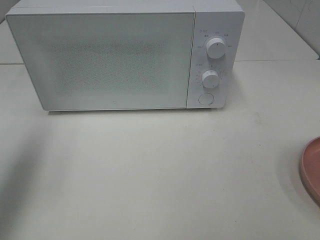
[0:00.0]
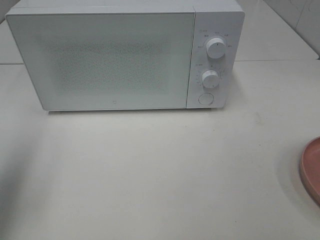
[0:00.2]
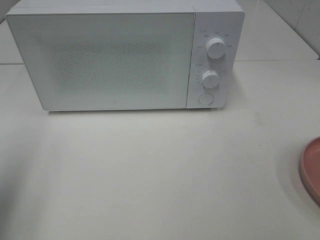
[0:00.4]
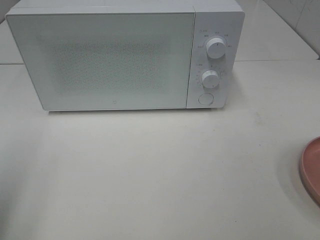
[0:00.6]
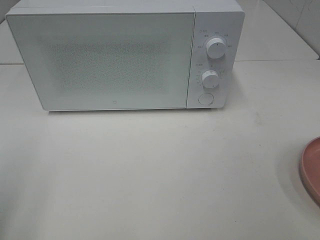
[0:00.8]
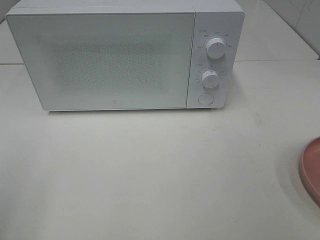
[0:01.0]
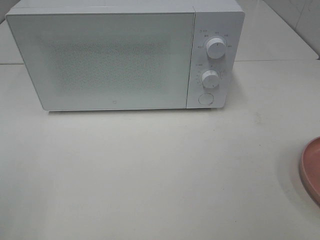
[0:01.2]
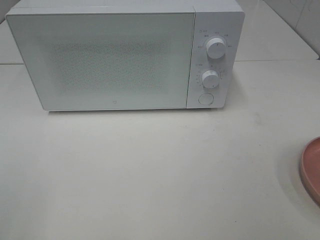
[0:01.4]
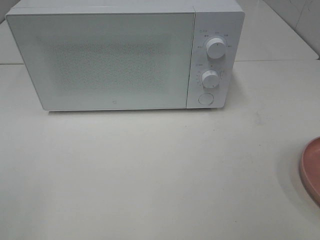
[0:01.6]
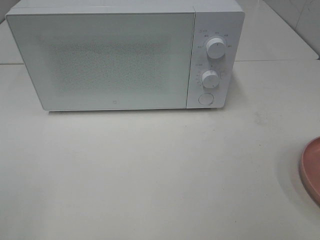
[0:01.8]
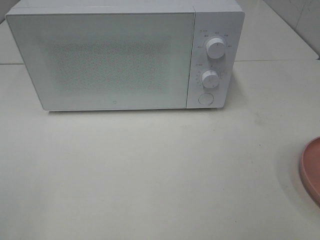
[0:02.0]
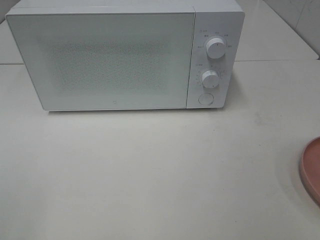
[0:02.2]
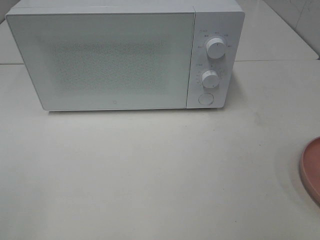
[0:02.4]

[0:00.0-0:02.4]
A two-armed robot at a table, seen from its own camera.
Task of the whole recording: Heat the burger.
0:00.0 to 0:01.2: The left gripper moves backward, approximately 20 cm.

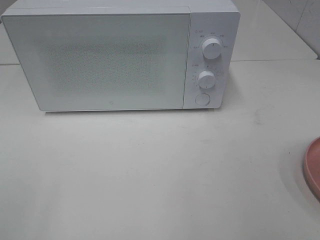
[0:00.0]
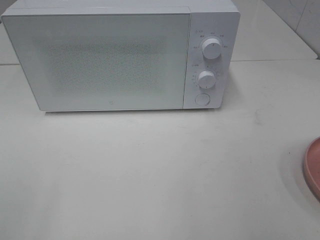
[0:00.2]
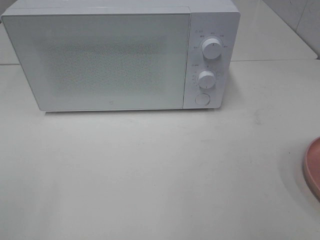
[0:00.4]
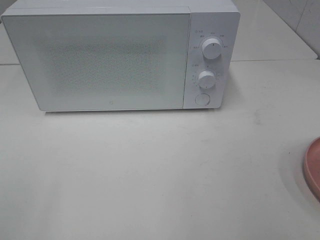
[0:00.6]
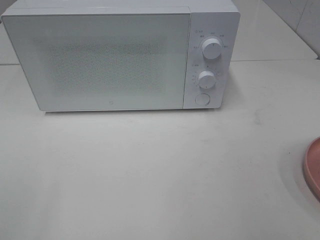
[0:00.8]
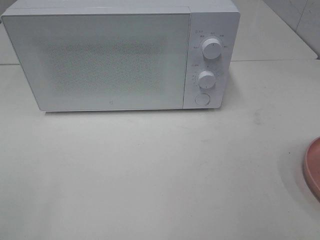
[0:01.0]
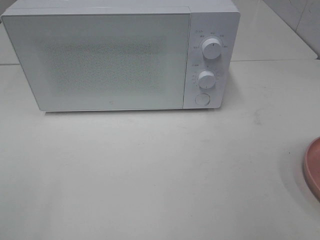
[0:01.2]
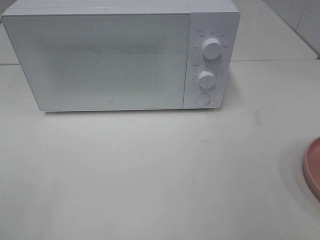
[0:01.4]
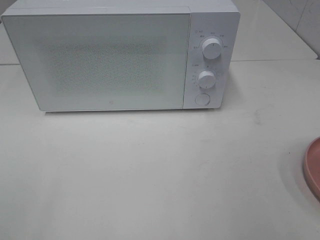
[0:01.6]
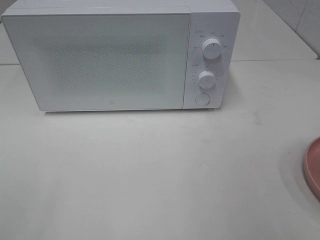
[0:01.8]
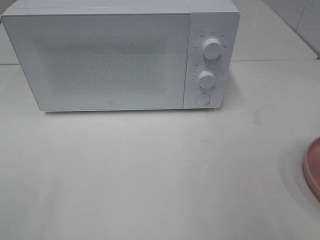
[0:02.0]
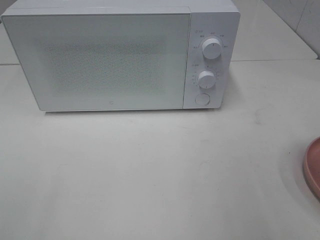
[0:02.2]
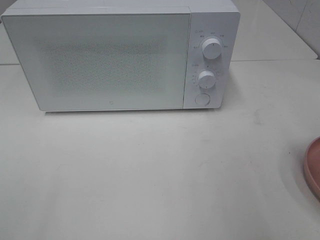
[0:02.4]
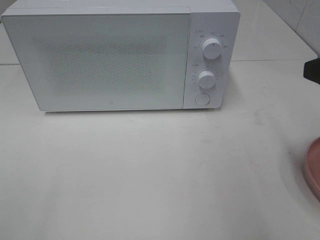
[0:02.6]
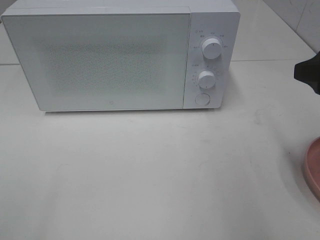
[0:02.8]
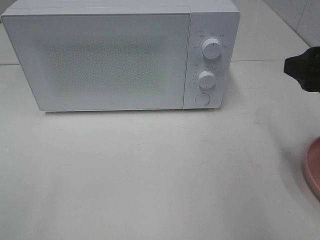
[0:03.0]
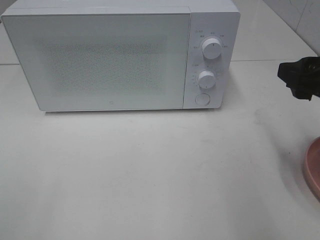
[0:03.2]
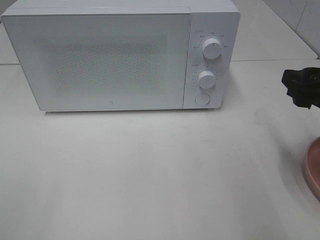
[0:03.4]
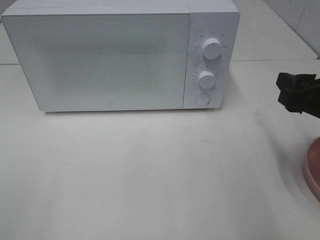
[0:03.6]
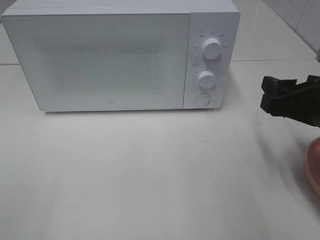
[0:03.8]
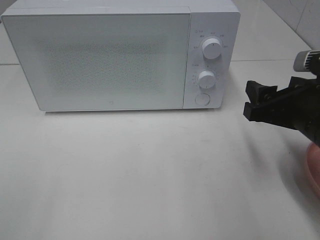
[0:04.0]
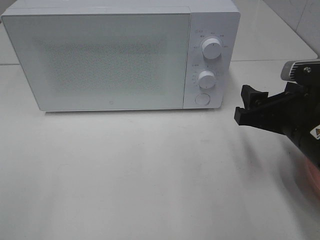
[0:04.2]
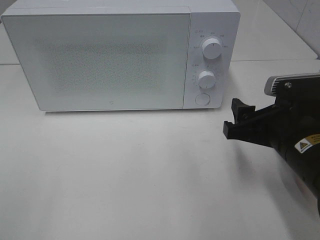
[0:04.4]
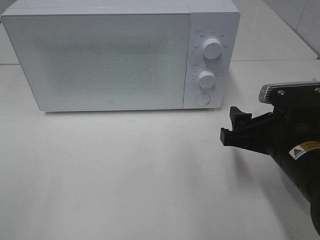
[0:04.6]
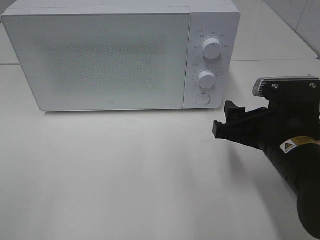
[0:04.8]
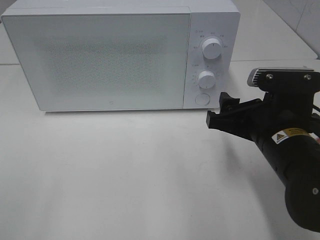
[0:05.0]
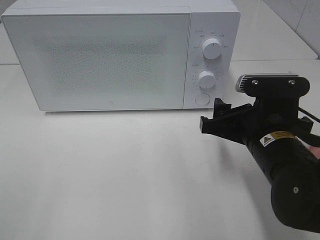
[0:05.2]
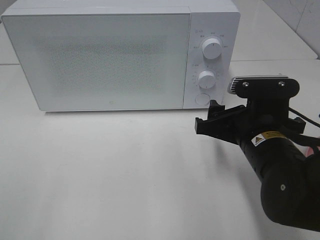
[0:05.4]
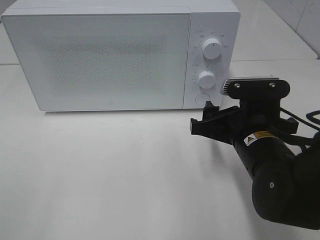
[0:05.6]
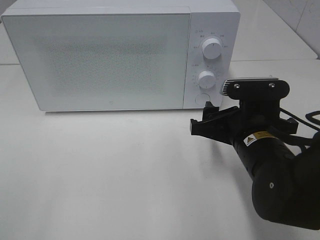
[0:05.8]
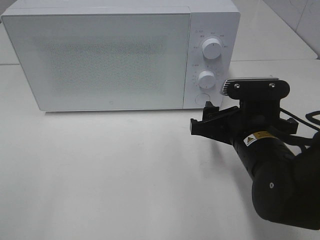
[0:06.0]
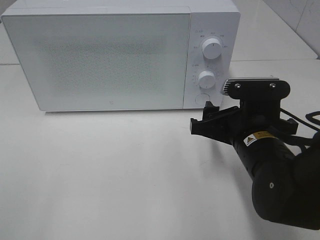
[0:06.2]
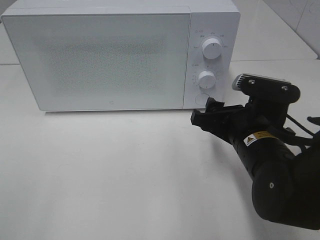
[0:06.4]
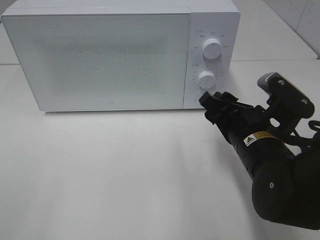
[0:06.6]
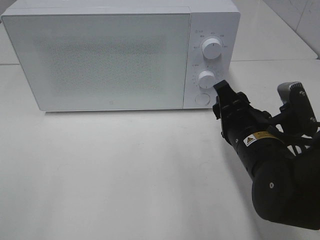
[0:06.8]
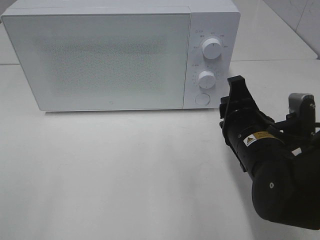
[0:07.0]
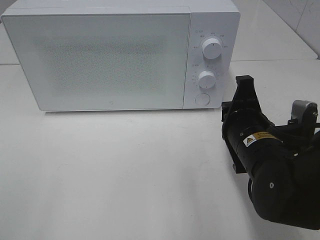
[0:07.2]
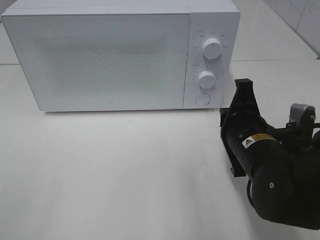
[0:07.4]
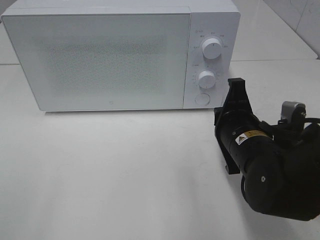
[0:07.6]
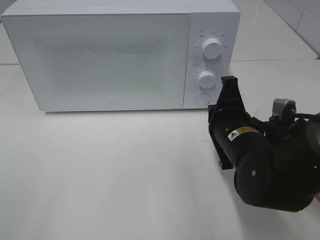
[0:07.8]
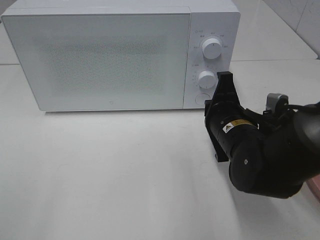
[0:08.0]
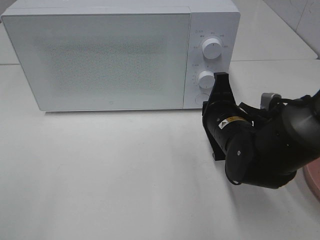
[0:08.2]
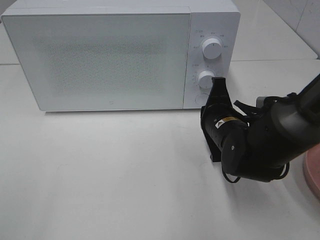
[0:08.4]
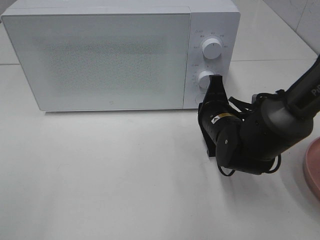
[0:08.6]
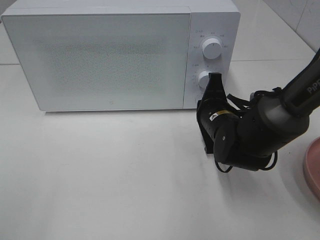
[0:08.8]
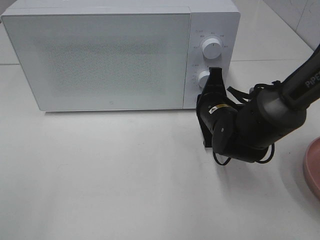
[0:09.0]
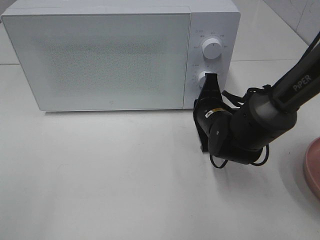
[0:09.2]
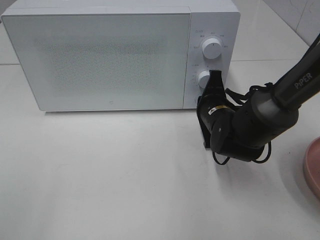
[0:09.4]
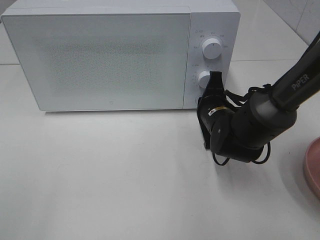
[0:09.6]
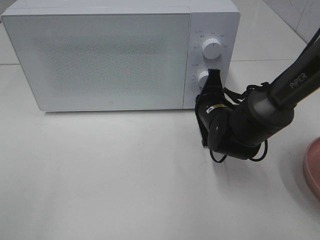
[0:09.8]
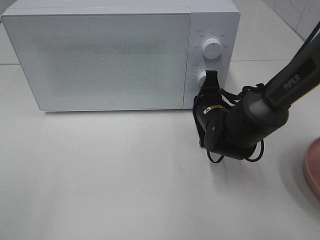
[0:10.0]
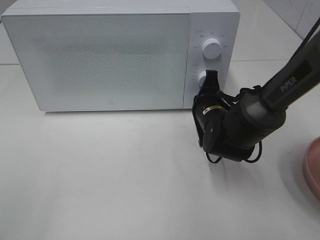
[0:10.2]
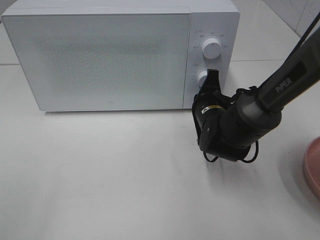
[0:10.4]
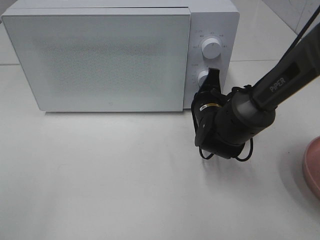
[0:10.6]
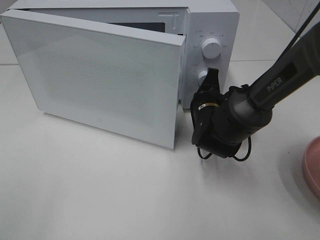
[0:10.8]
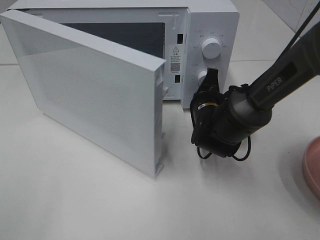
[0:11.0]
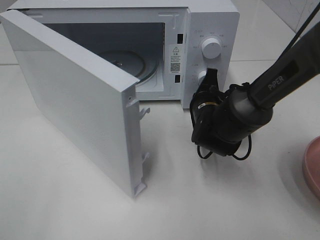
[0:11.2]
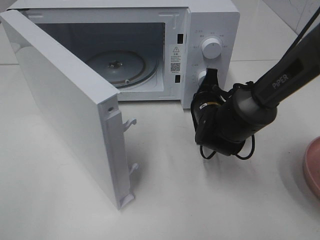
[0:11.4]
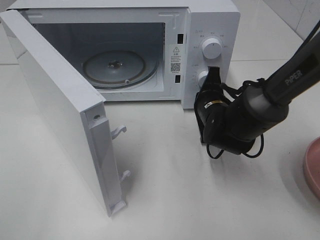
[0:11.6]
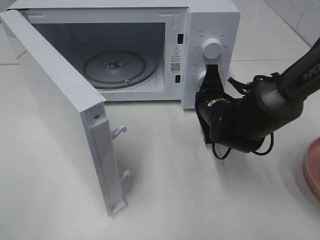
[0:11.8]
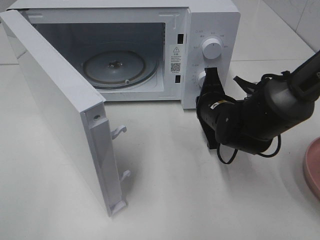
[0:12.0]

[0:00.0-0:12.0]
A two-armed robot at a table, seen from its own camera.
Task of the whole recording: Heat the burger.
0:01.6 to 0:03.0: The right gripper is displaced forward by approximately 15 cm.
0:03.0 to 0:04.4: The right gripper heads downward and to the left, covering roughly 10 cm.
0:04.4 to 0:06.0: The right gripper ends up some 5 cm from where it was.
0:06.0 to 0:07.6: The right gripper closes its fingers.
0:07.6 to 0:09.0: The right gripper moves forward, approximately 10 cm.
0:09.0 to 0:10.4: The grippers make only small movements.

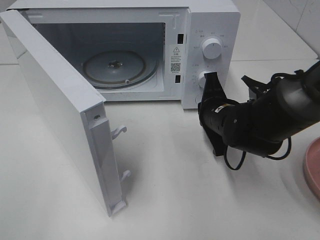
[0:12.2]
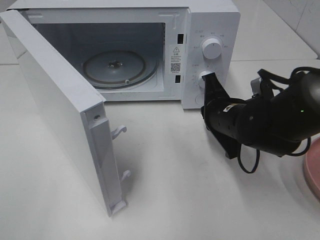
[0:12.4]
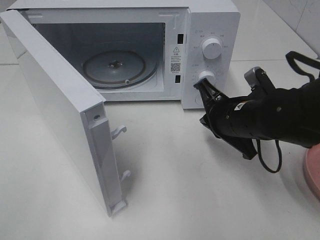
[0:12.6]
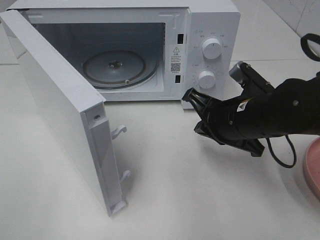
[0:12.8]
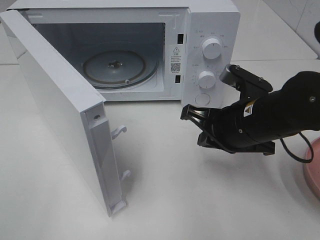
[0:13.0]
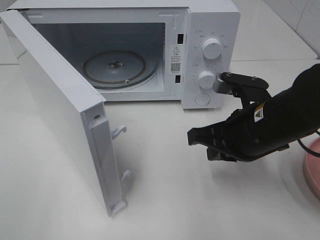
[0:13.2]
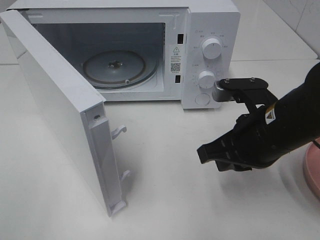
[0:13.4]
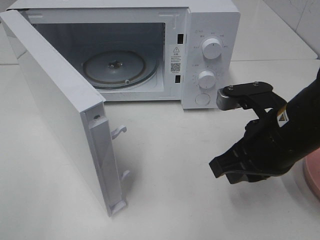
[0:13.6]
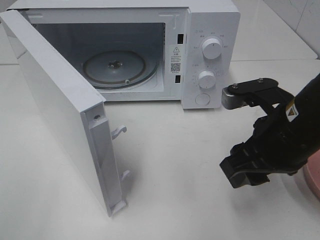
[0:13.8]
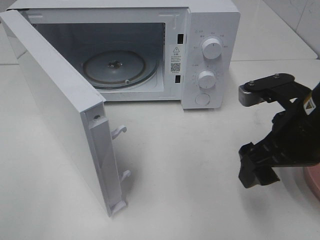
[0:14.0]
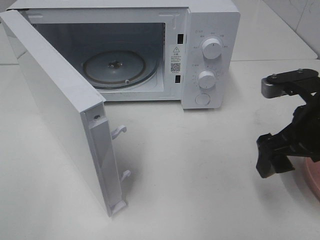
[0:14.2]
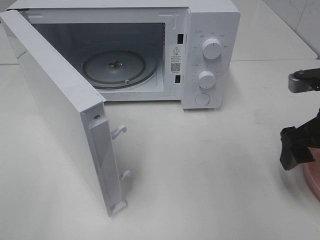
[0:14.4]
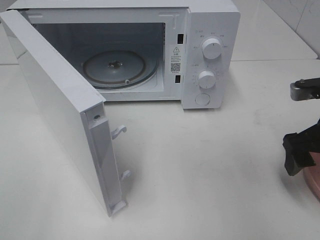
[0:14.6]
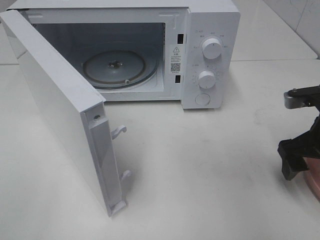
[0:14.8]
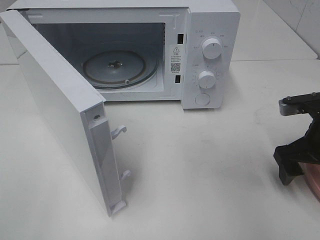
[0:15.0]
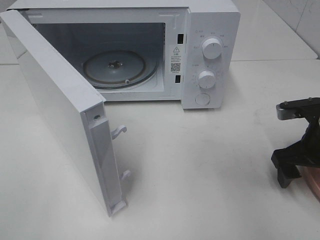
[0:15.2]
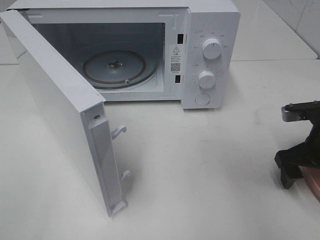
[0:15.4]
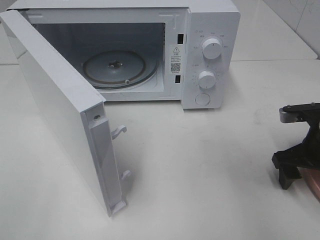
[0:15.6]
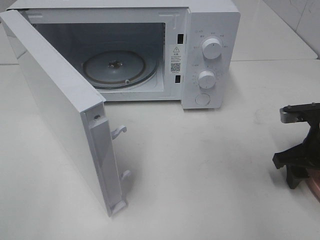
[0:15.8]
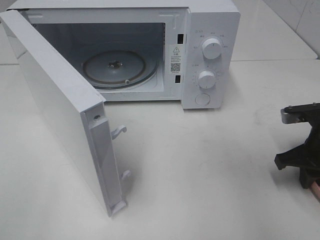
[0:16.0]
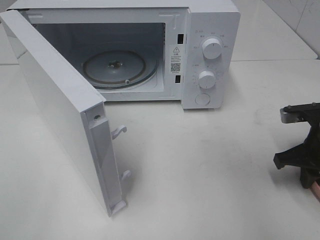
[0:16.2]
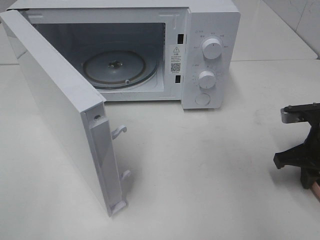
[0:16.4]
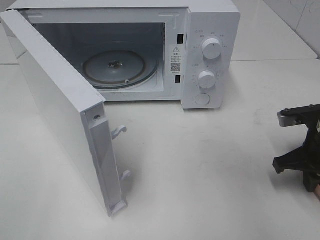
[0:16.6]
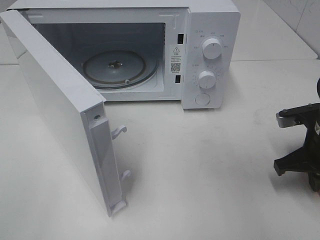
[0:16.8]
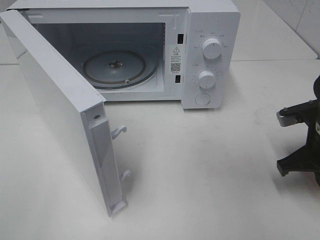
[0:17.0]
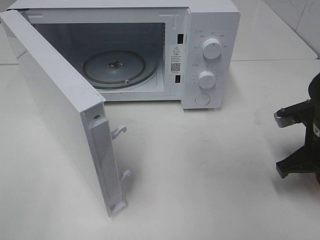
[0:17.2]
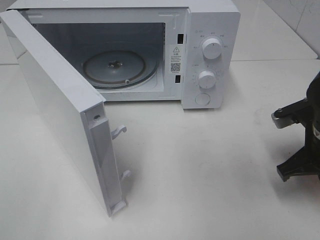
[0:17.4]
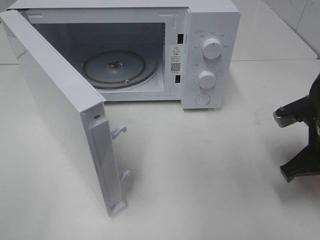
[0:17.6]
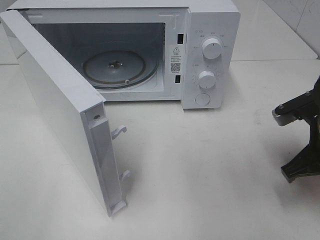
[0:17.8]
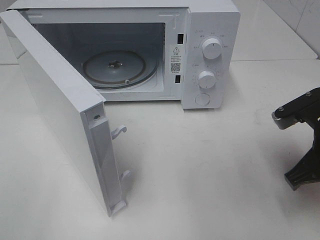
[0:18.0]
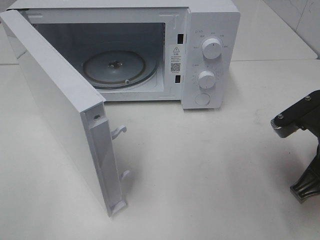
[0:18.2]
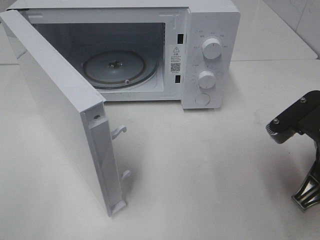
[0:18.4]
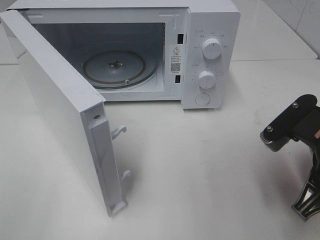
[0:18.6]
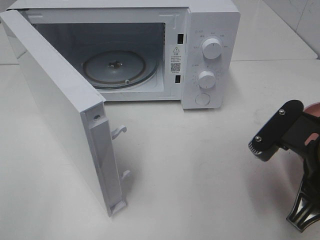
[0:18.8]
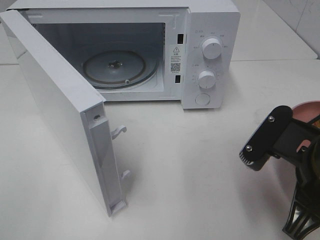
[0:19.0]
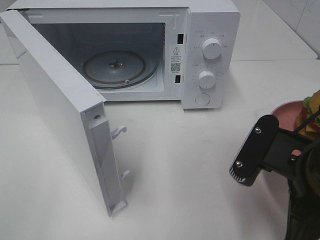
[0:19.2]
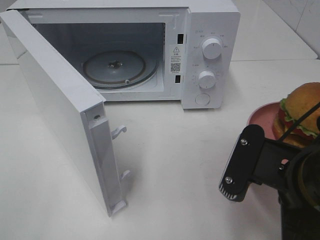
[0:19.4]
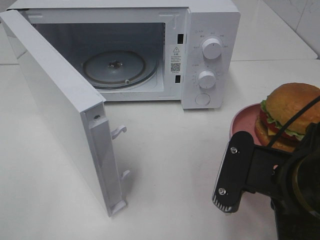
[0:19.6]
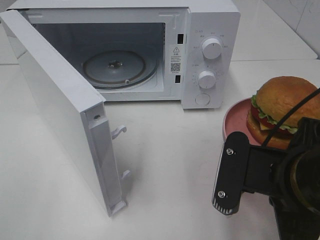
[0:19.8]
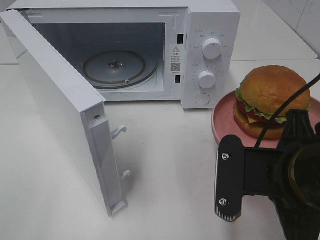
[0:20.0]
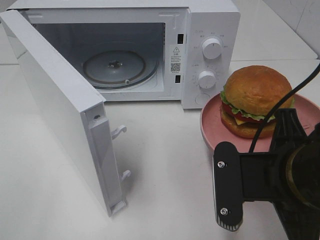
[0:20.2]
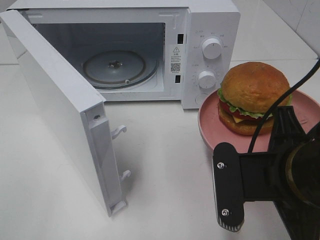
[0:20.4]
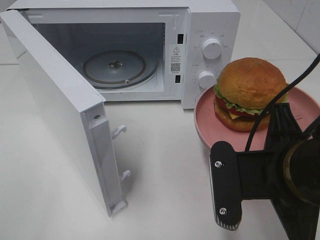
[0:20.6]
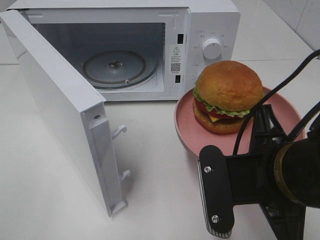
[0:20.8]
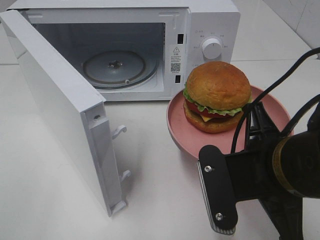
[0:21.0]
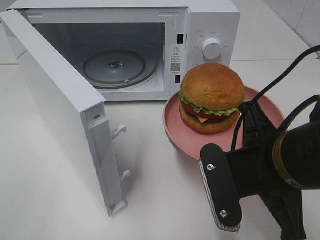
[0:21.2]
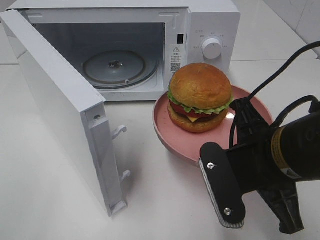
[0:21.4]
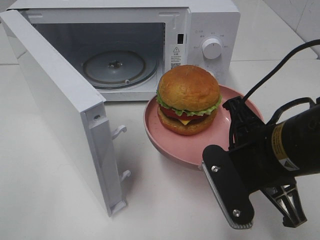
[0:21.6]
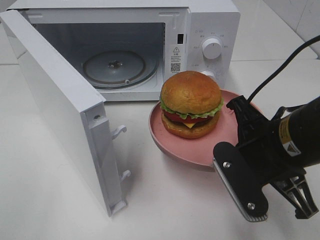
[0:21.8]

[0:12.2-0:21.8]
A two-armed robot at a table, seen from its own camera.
Task of the whole recording: Heat the burger.
Step, 0:12.2 to 0:16.8: Right hand: grab the plate with the hamburger.
0:12.2 to 0:13.8: The right gripper heads backward and upward, covering roughly 15 cm, and opens its fingers.
0:13.8 to 0:15.4: The right gripper heads to the right, downward and forward, covering about 15 cm.
0:15.4 to 0:17.0: The right gripper closes its fingers.
0:17.0 to 0:18.6: The right gripper goes about 15 cm backward, to the left and upward.
0:18.6 to 0:20.2: The right gripper travels to the left by about 5 cm.
0:20.2 to 0:21.8: The right gripper heads forward, covering some 5 cm.
